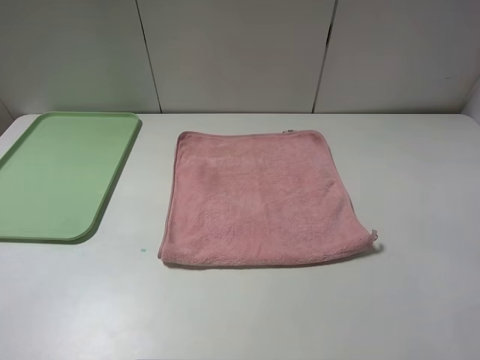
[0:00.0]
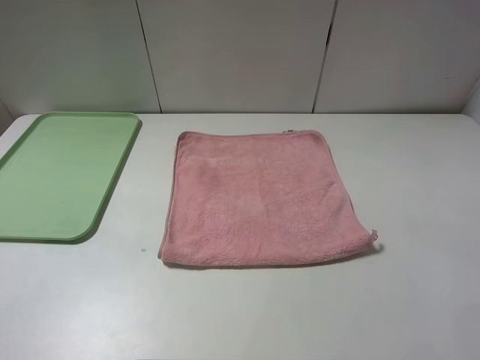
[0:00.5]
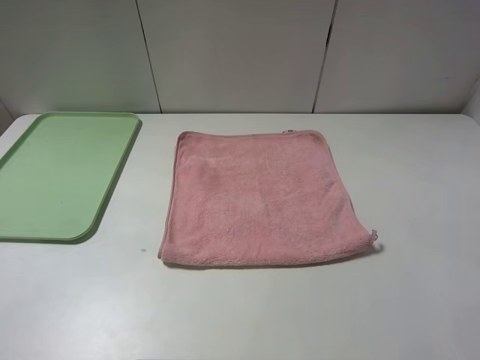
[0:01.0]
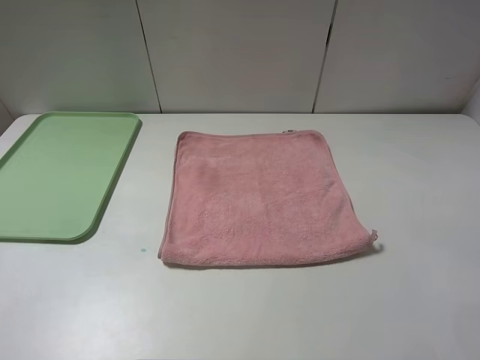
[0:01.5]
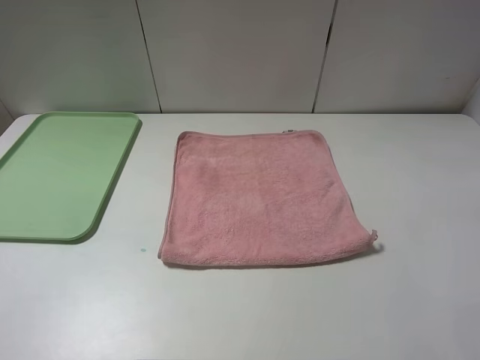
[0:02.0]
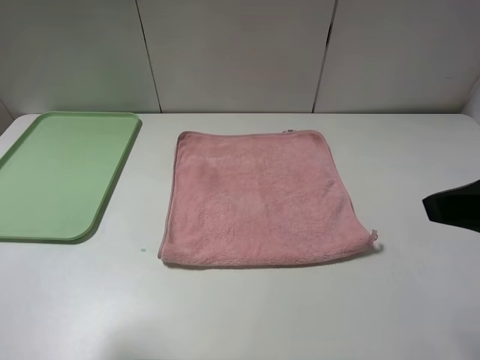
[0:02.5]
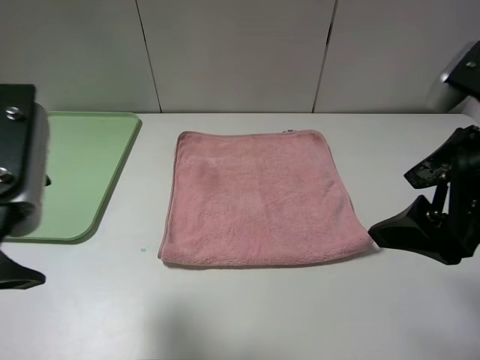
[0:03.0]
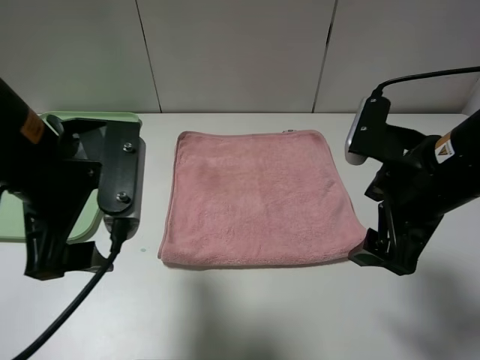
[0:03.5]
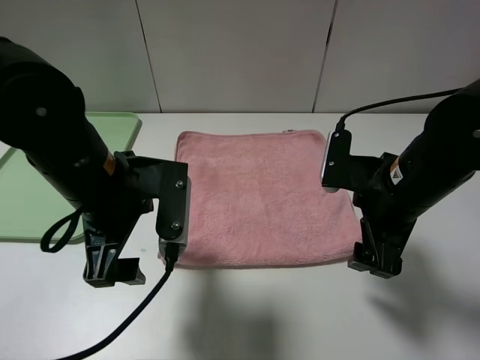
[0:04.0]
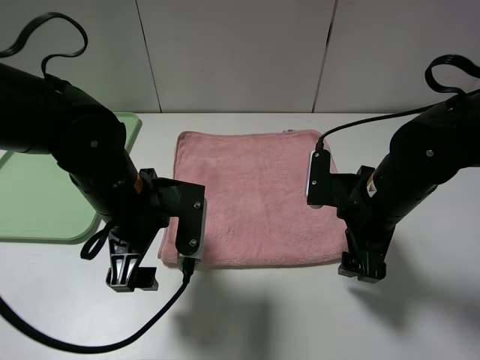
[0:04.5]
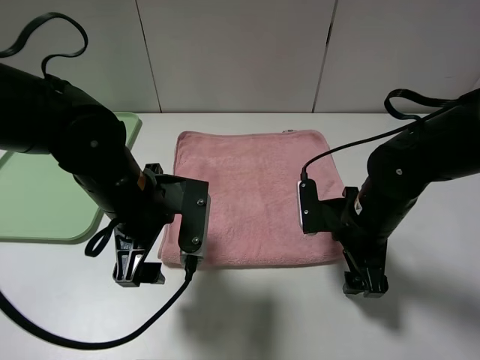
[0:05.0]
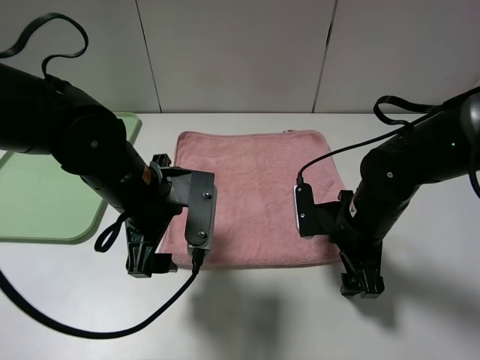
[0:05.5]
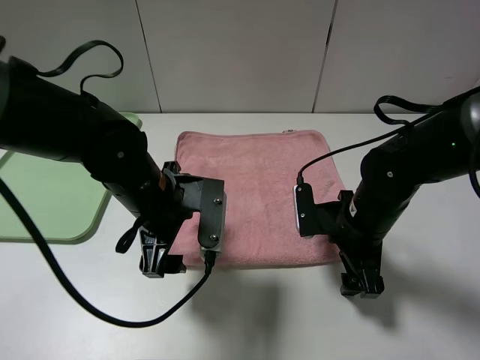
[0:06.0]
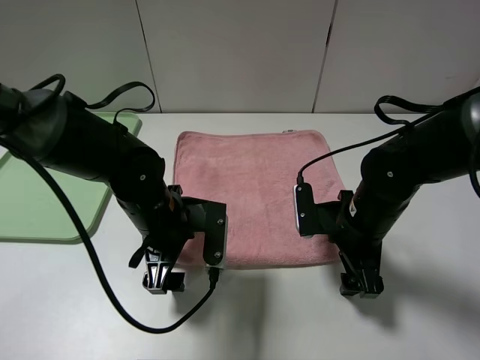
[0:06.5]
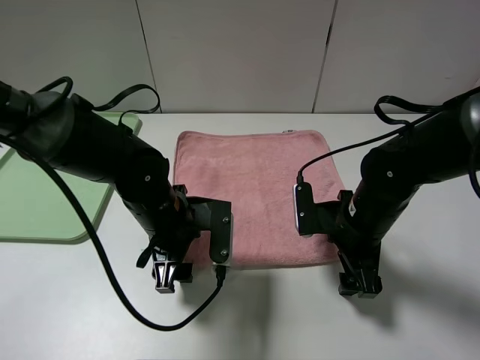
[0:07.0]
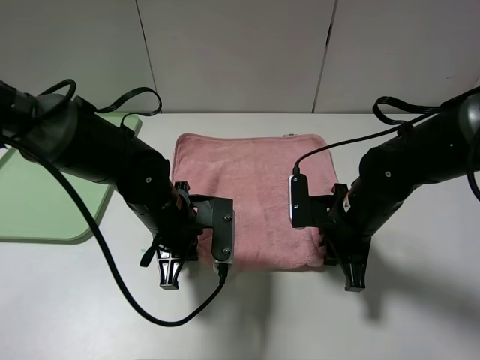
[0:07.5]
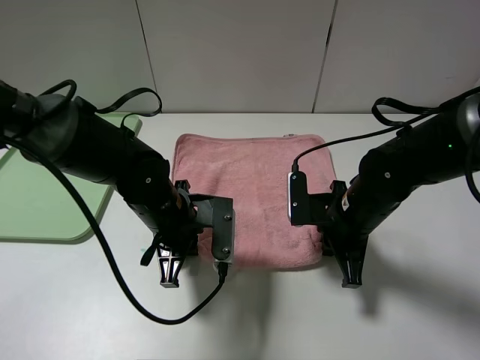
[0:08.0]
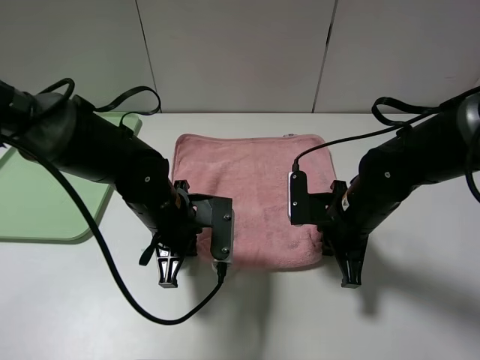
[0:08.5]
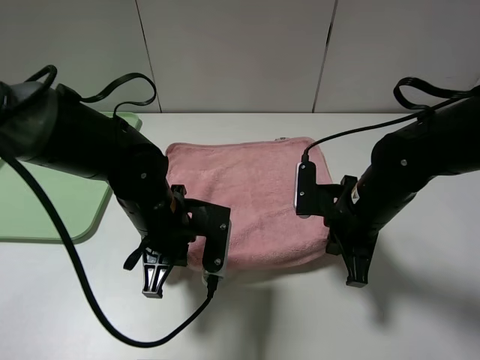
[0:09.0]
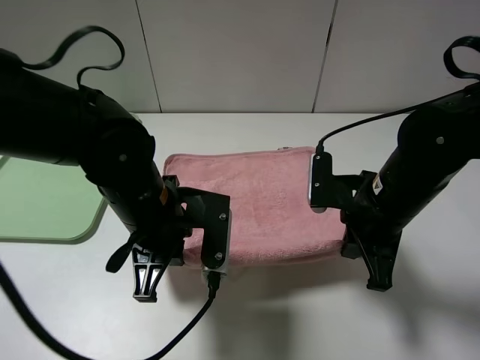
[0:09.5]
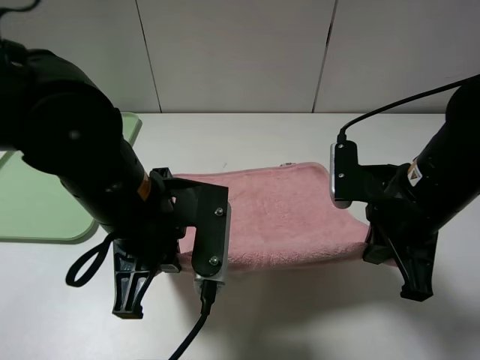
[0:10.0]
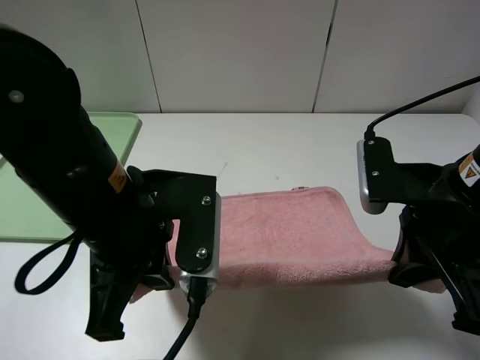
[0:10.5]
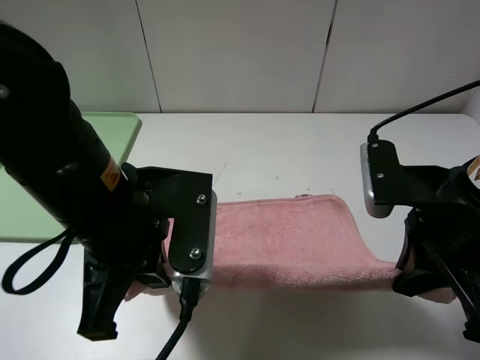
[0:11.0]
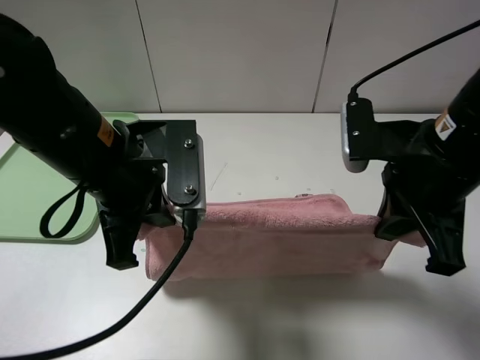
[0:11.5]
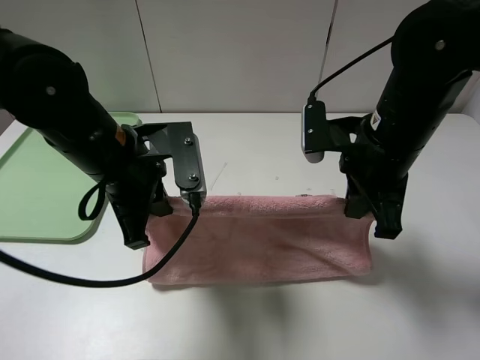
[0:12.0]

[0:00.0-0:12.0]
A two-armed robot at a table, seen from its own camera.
0:02.0 to 0:04.0: The right gripper moves downward, forward and to the left, some 25 cm. Meanwhile the left gripper moves forward, to the right and downward, approximately 25 cm.
0:04.0 to 0:06.0: The grippers both shift downward by roughly 5 cm.
0:06.0 to 0:08.0: The left gripper closes its fingers. Meanwhile the right gripper closes.
0:08.0 to 0:10.0: The grippers both shift upward and backward by approximately 10 cm.
0:10.0 to 0:12.0: The two grippers go roughly 5 cm forward.

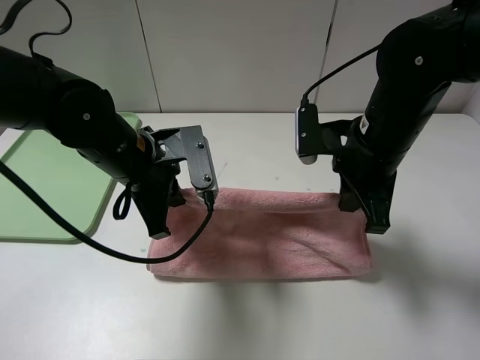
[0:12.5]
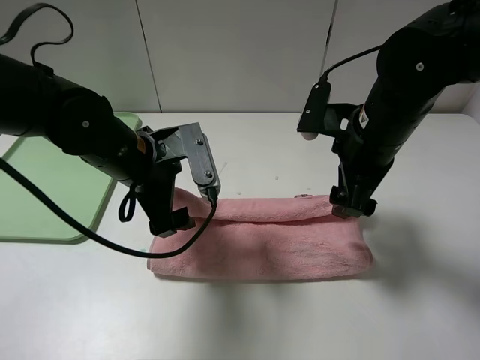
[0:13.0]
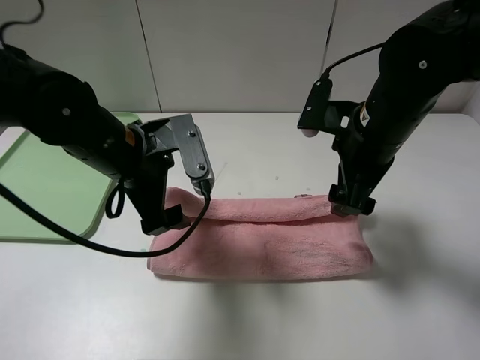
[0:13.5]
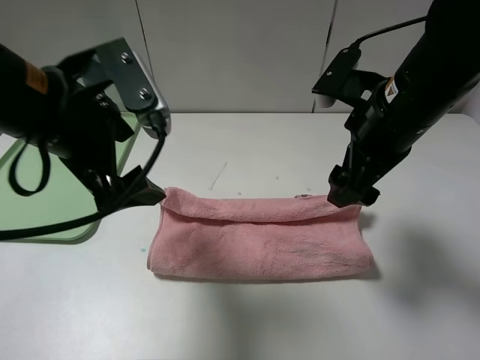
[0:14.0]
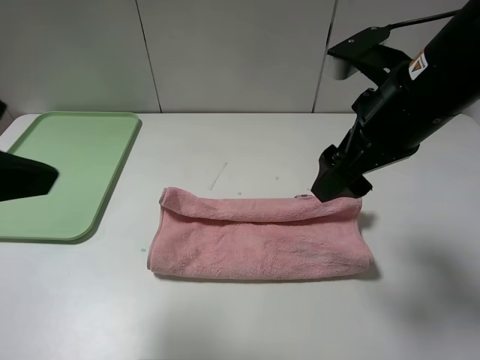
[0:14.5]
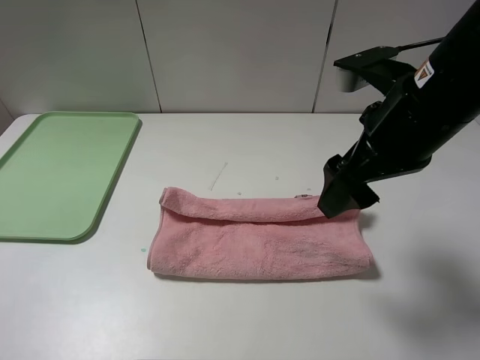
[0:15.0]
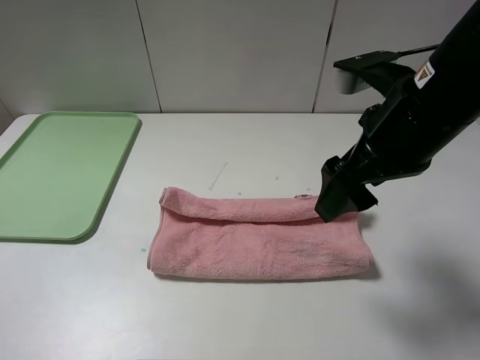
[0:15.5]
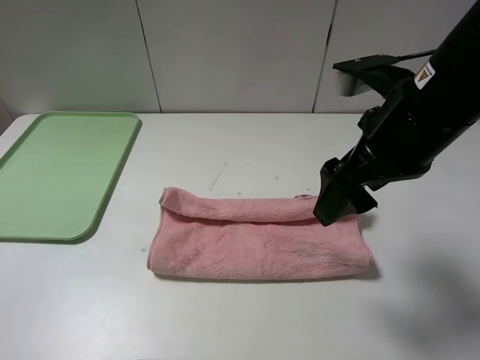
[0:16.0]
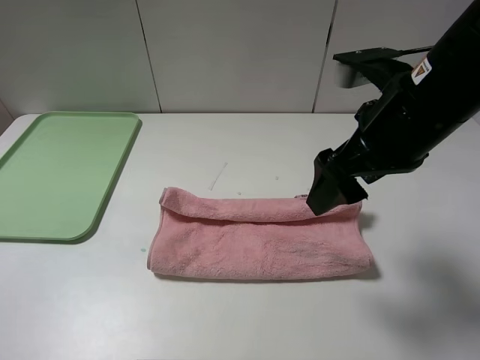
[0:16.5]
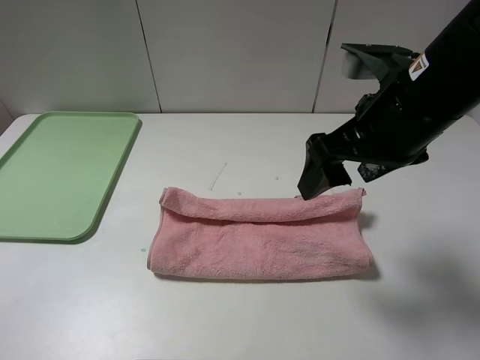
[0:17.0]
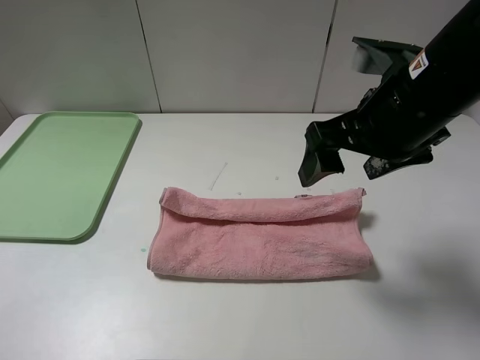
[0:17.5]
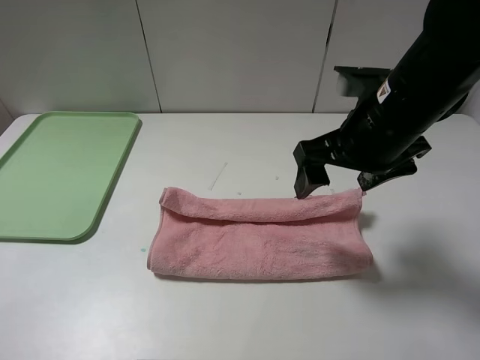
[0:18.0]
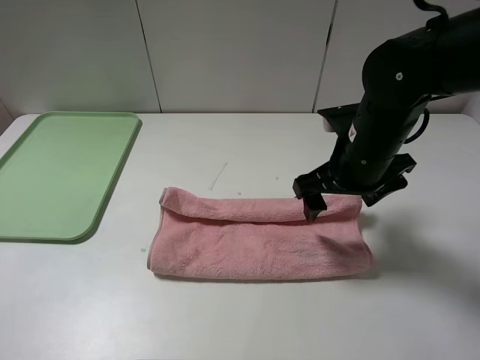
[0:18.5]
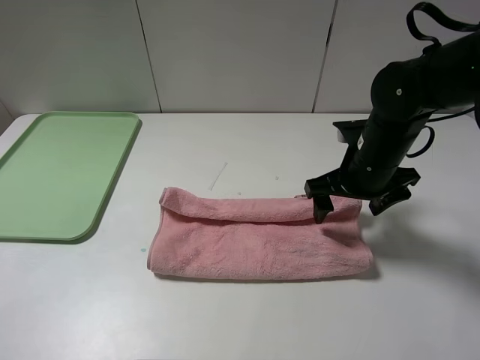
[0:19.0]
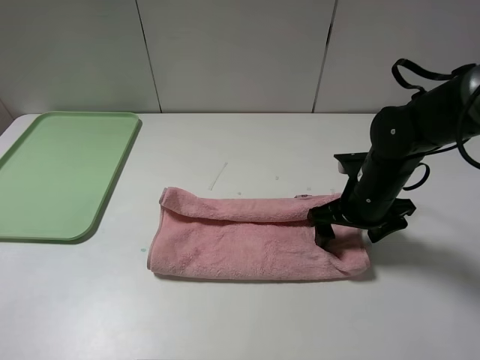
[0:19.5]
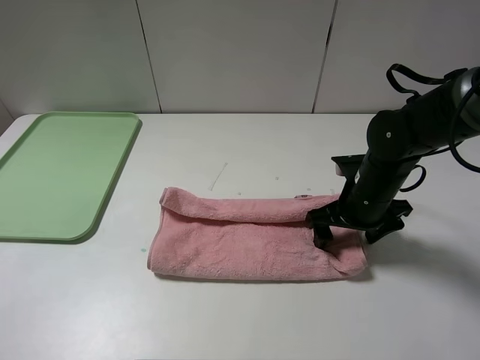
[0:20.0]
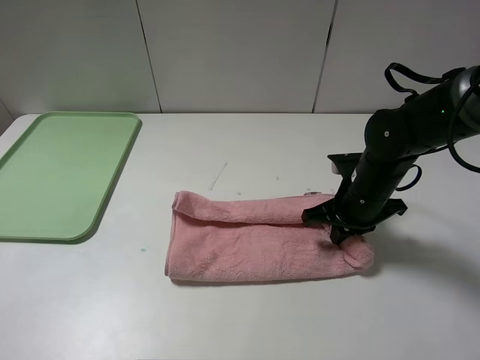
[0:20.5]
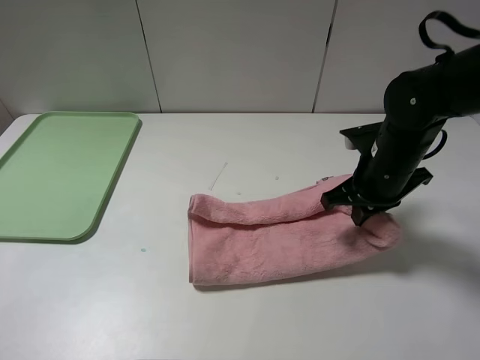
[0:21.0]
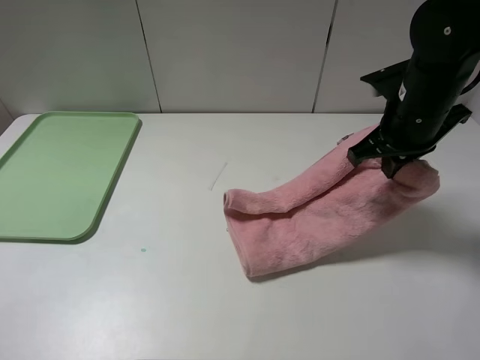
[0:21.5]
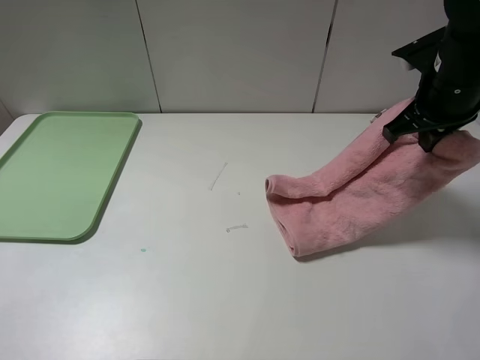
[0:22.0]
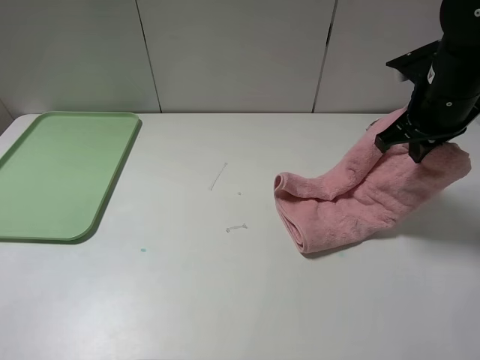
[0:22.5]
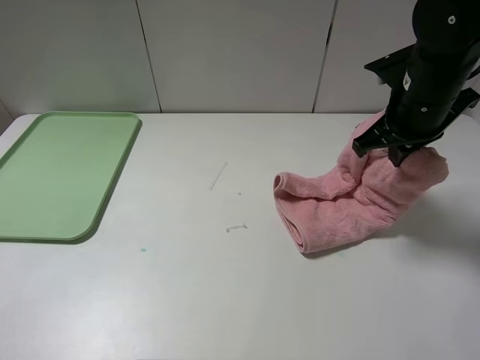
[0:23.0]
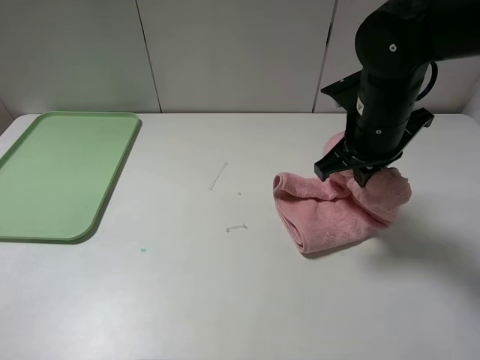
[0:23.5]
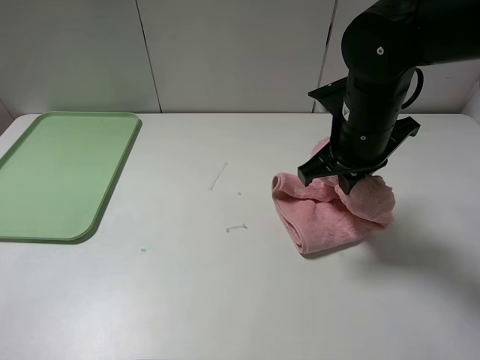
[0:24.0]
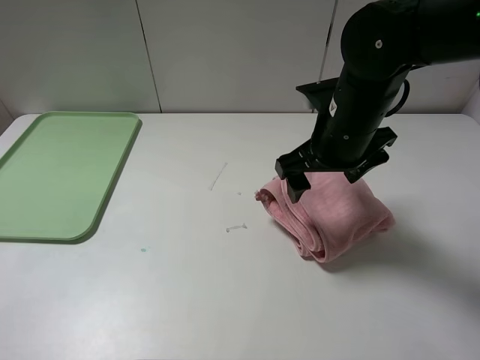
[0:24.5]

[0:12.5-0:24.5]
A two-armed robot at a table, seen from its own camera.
Step, 0:13.5 to 0:24.0: Fold the pink towel from right to left with right gripper.
0:12.5 to 0:14.5: The right gripper travels upward by some 5 cm, and opens its fingers. The left gripper moves upward, backward and to the left, about 25 cm, and opens.
0:14.5 to 0:16.5: The left gripper heads backward, to the left and downward, covering roughly 15 cm.
0:16.5 to 0:18.5: The right gripper goes approximately 10 cm downward and forward.
0:18.5 to 0:20.5: The right gripper moves downward, about 10 cm, and closes.
0:20.5 to 0:22.5: The right gripper is displaced upward and to the right by roughly 15 cm.
0:22.5 to 0:24.5: The right gripper moves to the left, some 10 cm, and opens up.

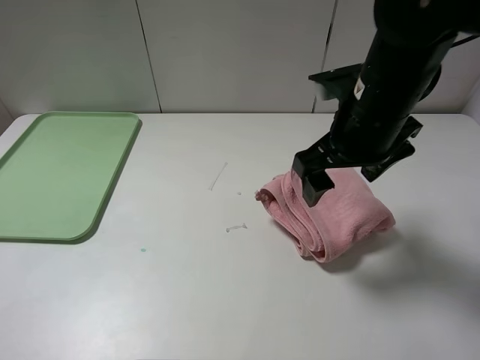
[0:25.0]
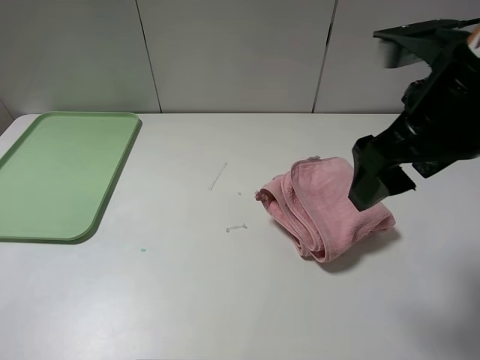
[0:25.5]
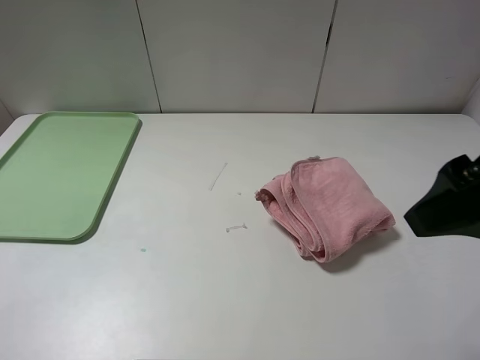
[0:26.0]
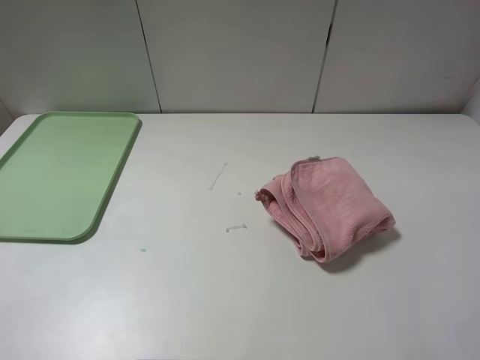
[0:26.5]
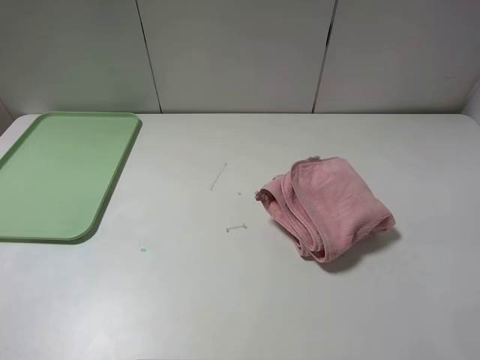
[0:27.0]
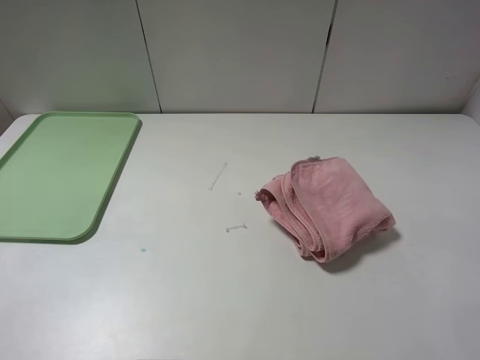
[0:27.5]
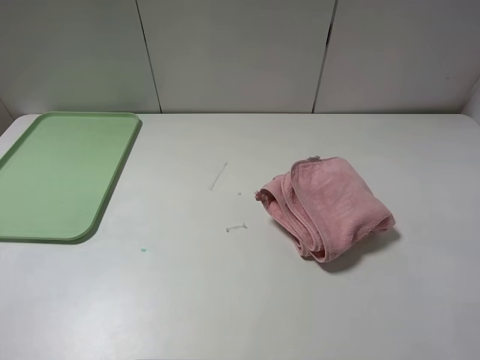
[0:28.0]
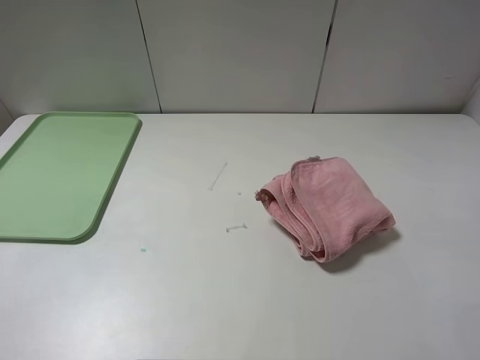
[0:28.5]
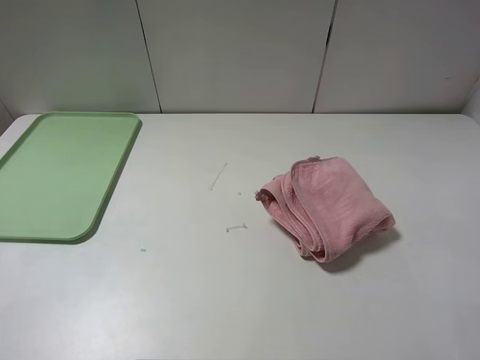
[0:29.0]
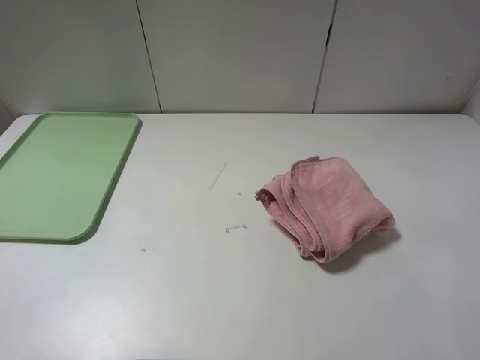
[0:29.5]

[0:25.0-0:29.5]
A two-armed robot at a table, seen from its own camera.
0:25.0 to 0:27.0: The right gripper travels backward and to the right by about 30 cm.
